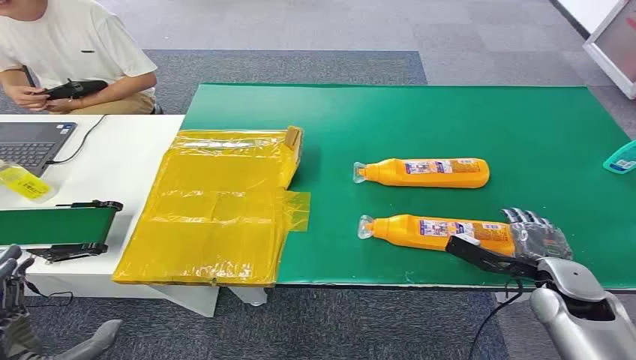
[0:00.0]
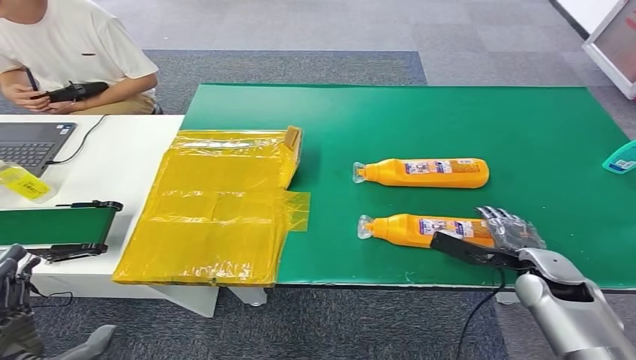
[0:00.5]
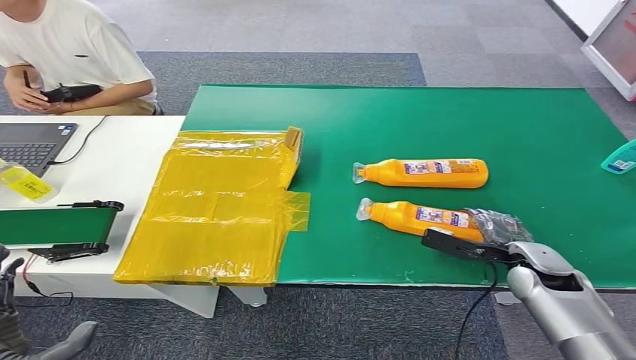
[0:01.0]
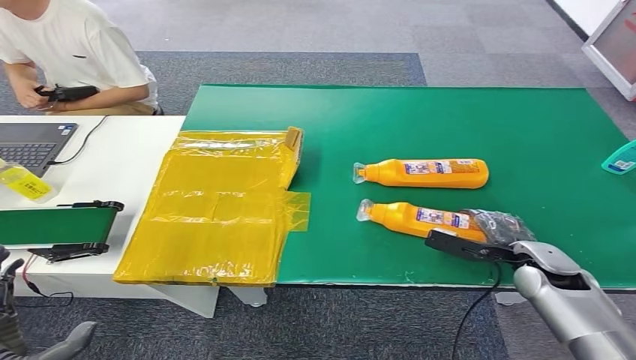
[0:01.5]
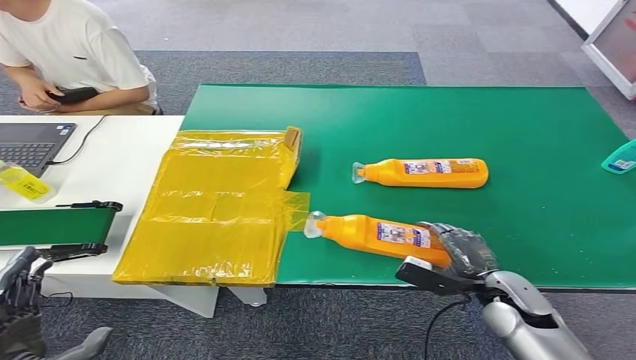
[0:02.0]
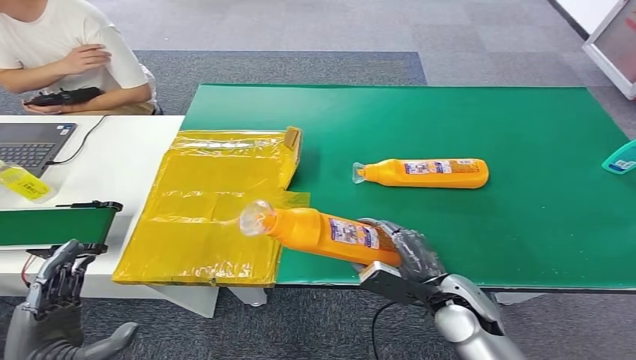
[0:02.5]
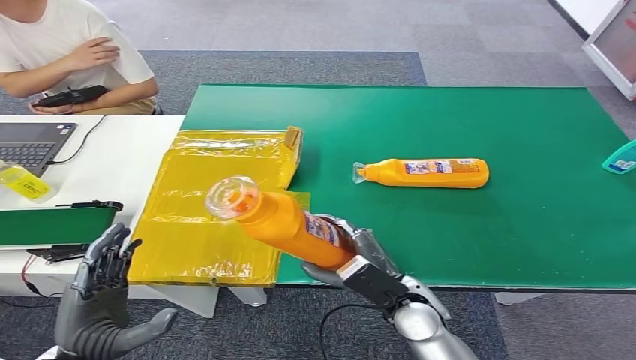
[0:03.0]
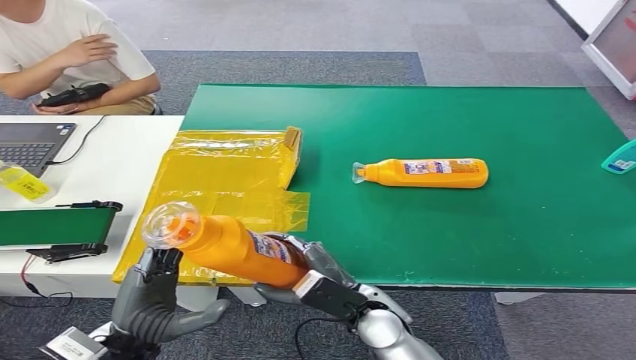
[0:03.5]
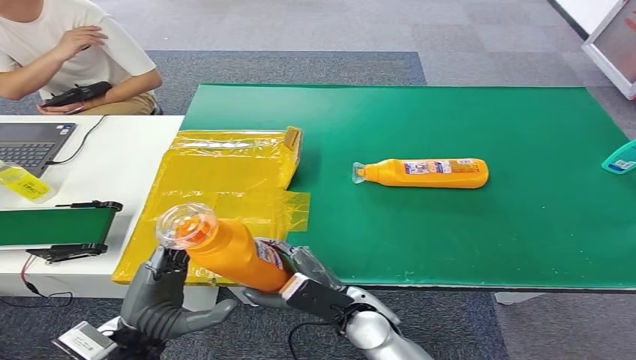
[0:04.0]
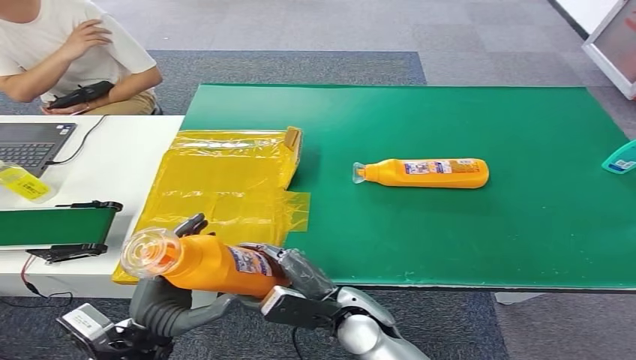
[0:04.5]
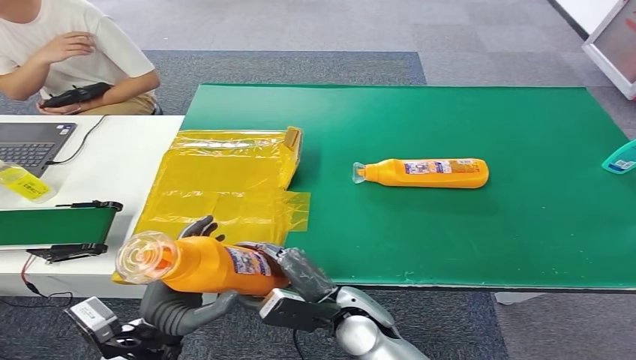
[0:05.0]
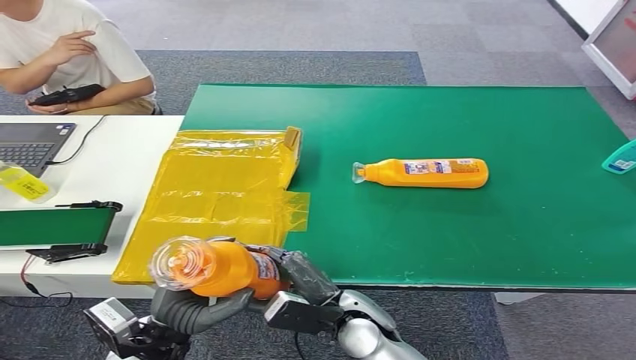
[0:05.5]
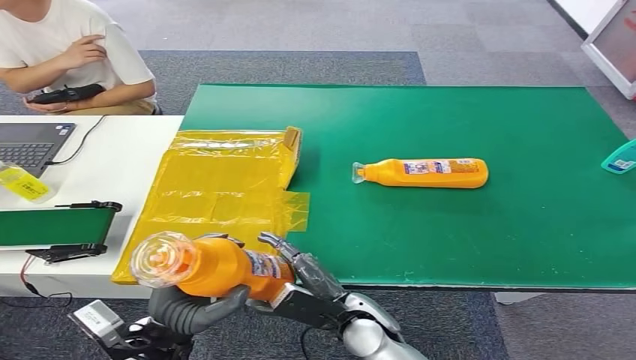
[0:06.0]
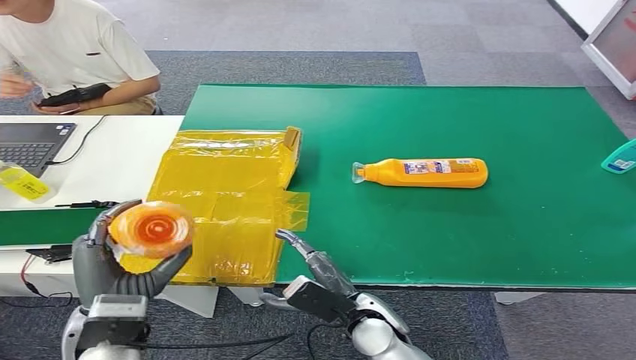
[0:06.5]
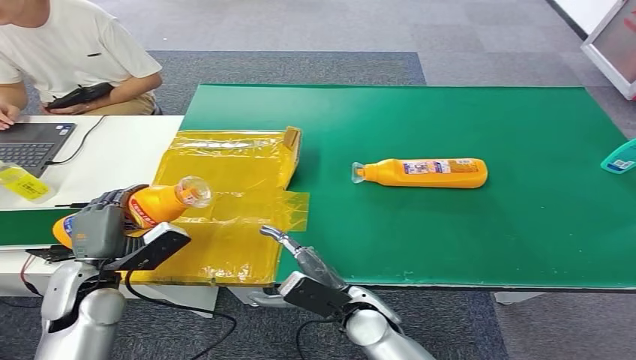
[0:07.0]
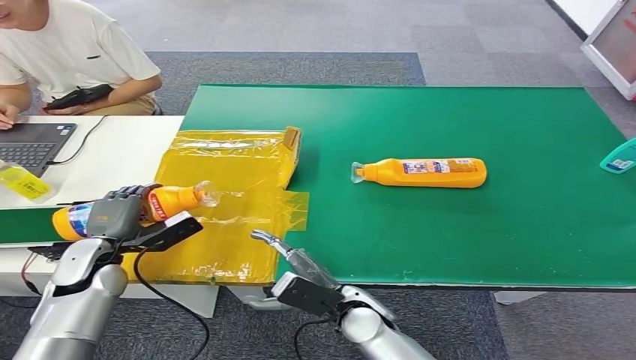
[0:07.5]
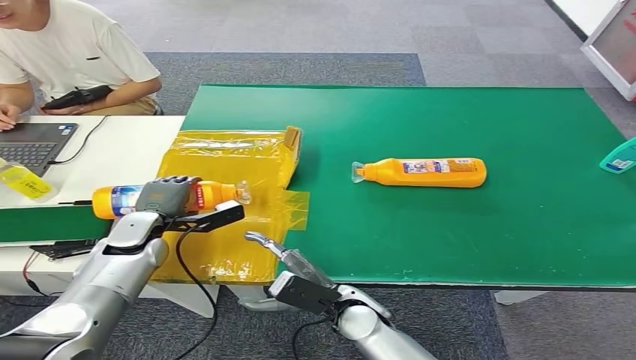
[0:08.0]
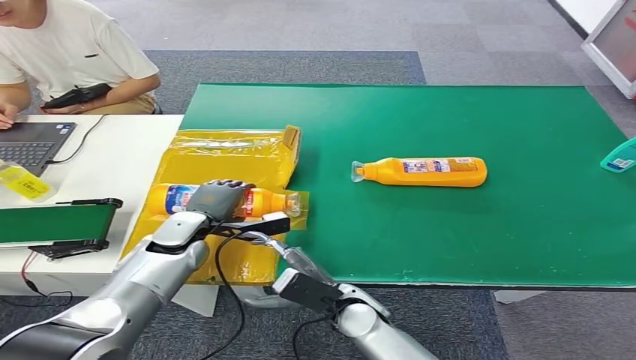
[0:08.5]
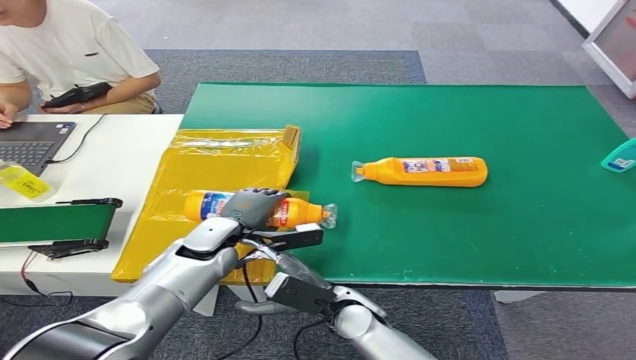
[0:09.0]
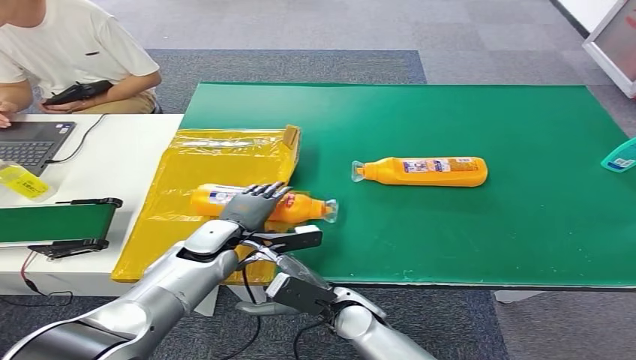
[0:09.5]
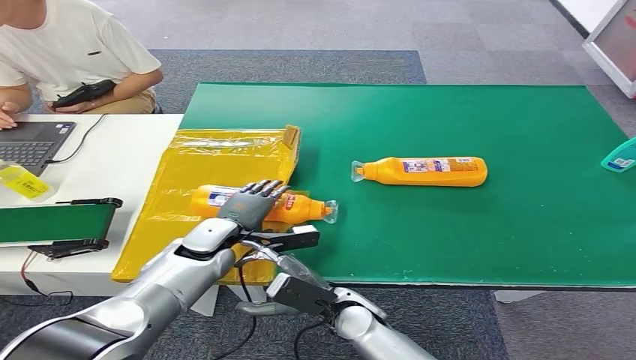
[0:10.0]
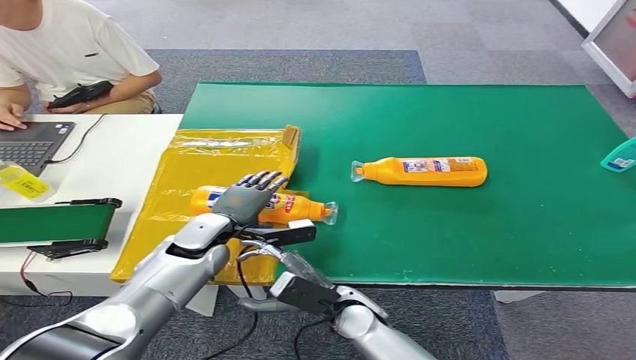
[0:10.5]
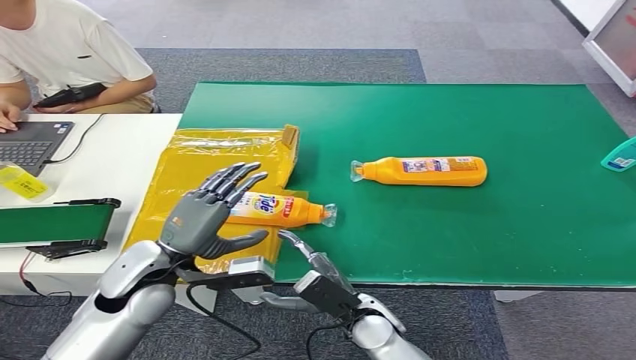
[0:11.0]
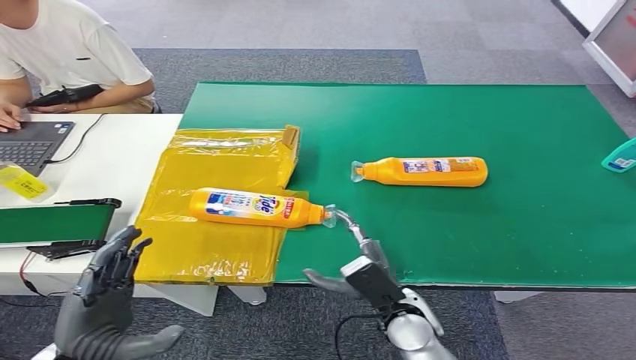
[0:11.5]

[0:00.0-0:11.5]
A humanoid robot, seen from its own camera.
Step, 0:00.0 to 0:03.0: Pick up the bottle from the table.
Step, 0:03.5 to 0:11.5: Turn the bottle to the front side.
0:02.0 to 0:04.0: The right hand moves to the left, about 25 cm. Meanwhile the left hand moves to the right and forward, some 15 cm.
0:04.0 to 0:06.0: There are only small adjustments of the hands.
0:06.0 to 0:07.5: The left hand shifts roughly 20 cm forward and to the left.
0:07.5 to 0:09.5: The left hand goes roughly 20 cm to the right.
0:09.5 to 0:11.5: The right hand heads to the right, covering some 10 cm. The left hand goes some 25 cm backward and to the left.
